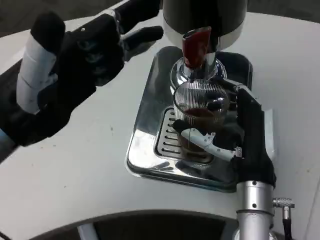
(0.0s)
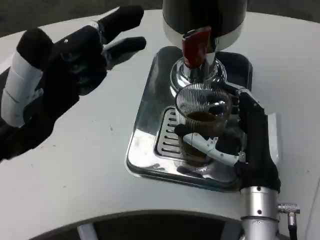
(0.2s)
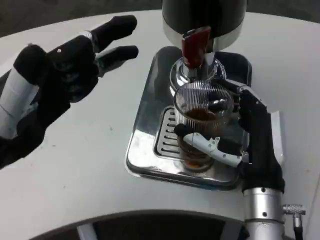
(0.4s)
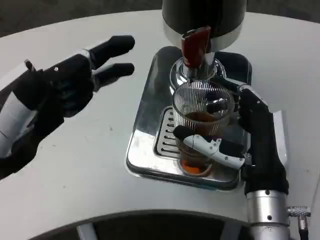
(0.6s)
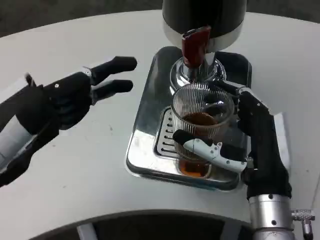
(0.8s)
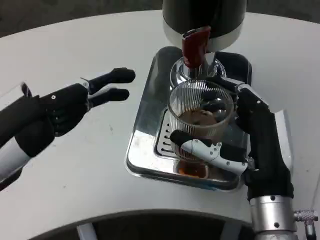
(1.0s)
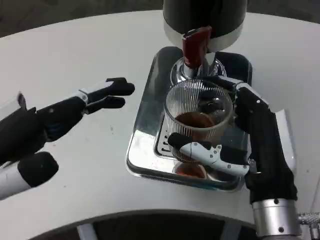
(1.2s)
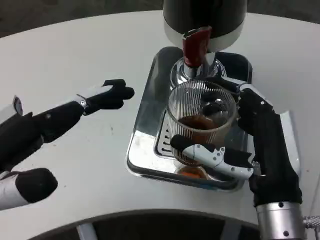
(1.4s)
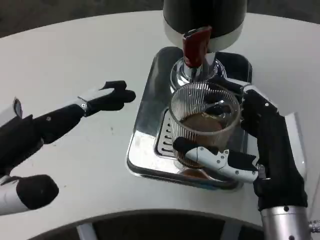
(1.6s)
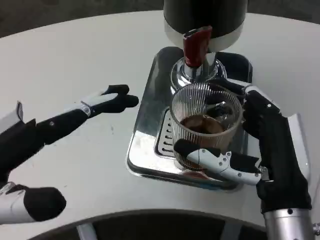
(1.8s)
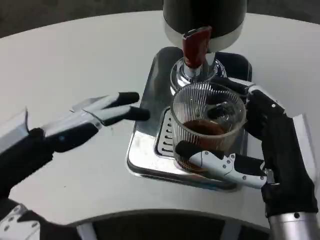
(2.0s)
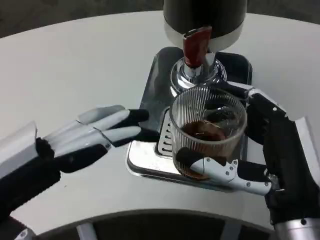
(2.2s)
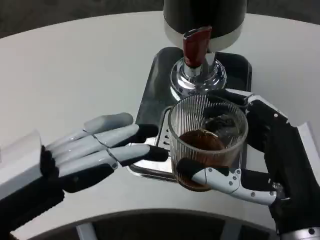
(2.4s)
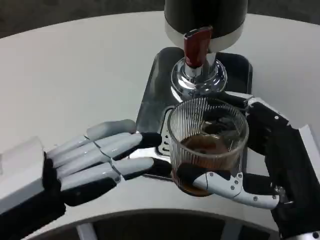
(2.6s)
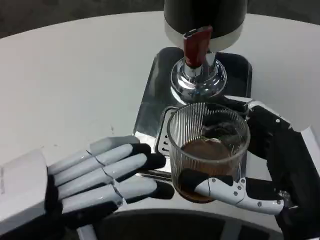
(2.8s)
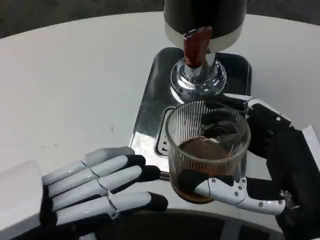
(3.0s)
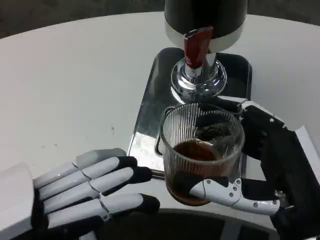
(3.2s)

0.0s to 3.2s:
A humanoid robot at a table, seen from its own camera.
Task of the whole recording: Grasp the cup under the faucet to collect the drink, then remove the cup.
0.0s to 1.6s: Both hands move backward, some 5 cm.
1.6s to 3.2s: The right hand shifts about 5 cm backward.

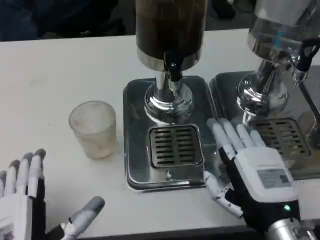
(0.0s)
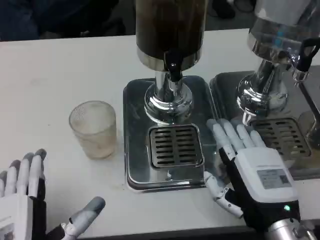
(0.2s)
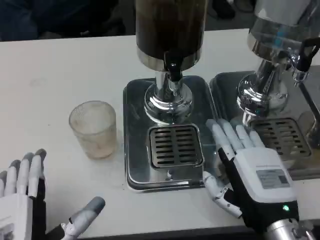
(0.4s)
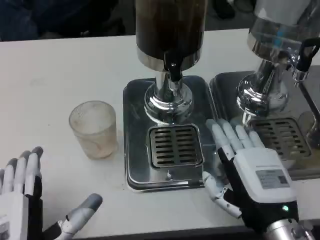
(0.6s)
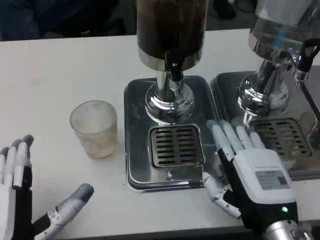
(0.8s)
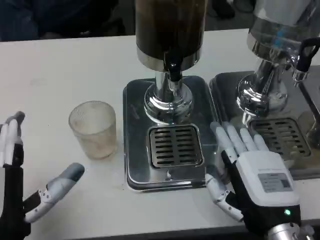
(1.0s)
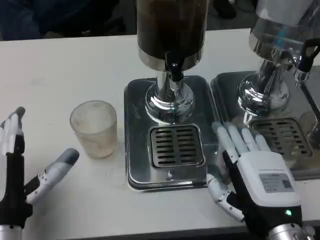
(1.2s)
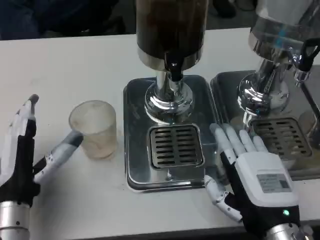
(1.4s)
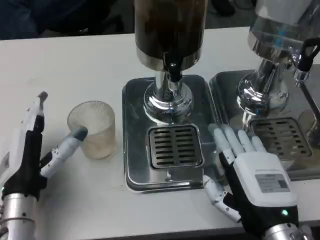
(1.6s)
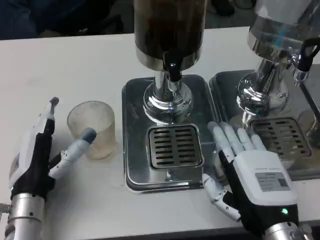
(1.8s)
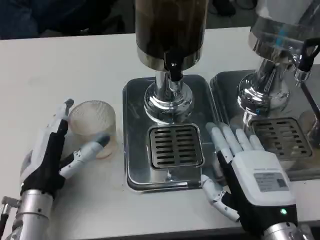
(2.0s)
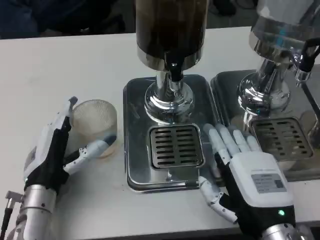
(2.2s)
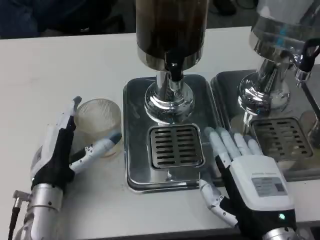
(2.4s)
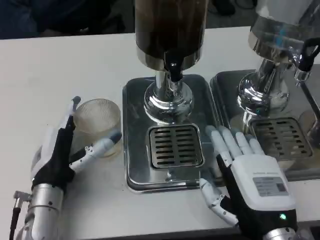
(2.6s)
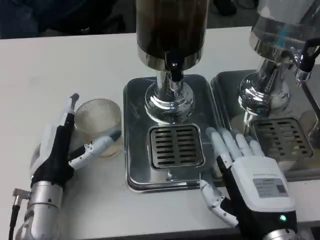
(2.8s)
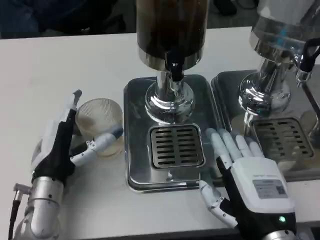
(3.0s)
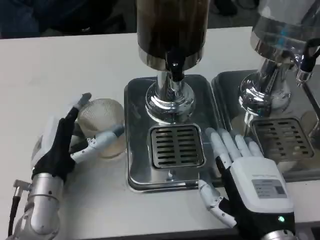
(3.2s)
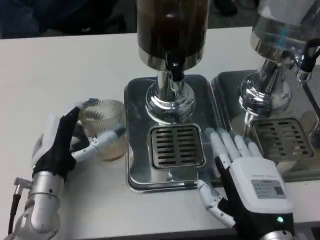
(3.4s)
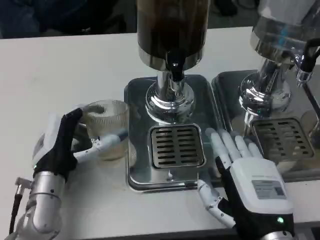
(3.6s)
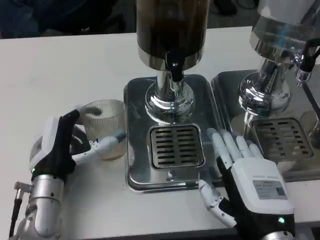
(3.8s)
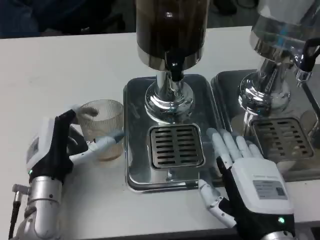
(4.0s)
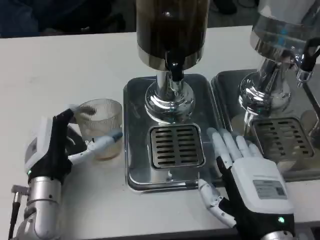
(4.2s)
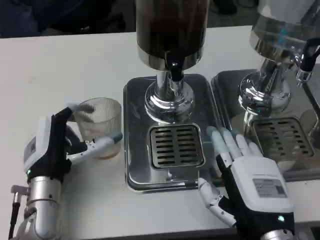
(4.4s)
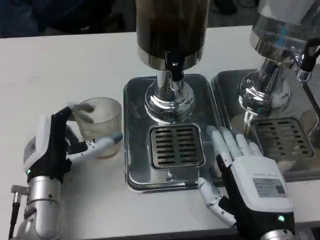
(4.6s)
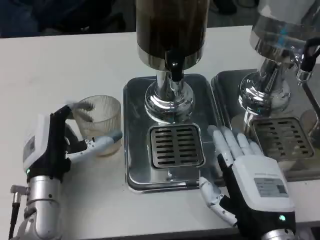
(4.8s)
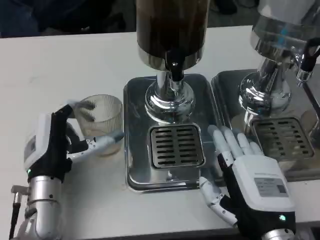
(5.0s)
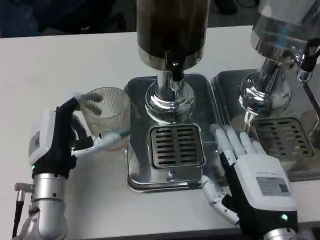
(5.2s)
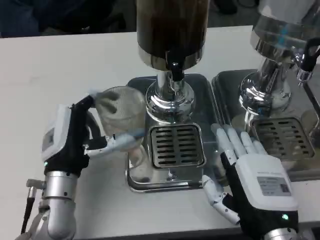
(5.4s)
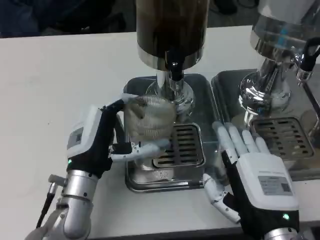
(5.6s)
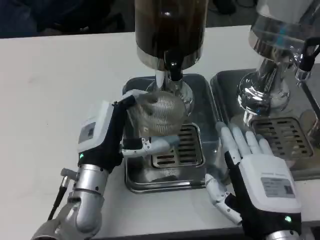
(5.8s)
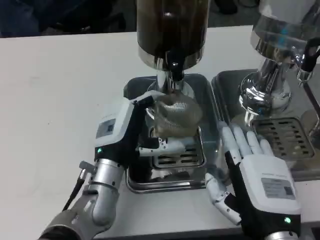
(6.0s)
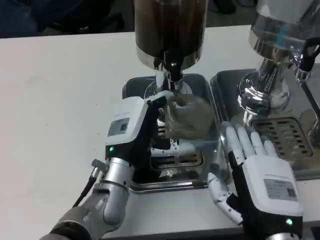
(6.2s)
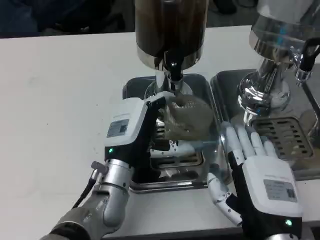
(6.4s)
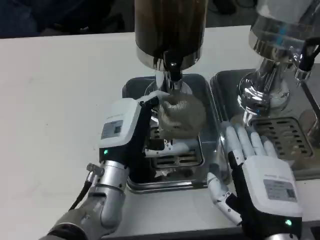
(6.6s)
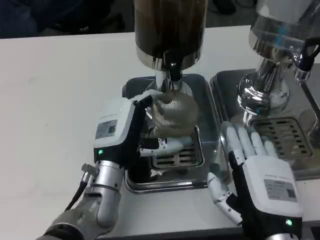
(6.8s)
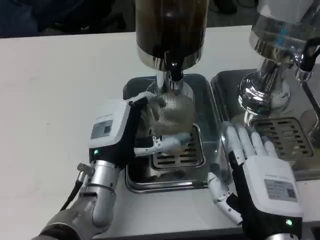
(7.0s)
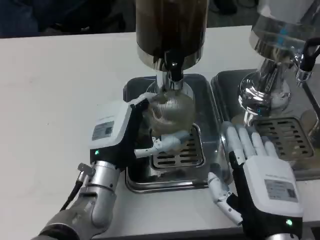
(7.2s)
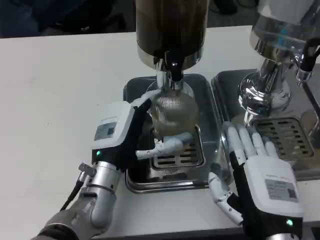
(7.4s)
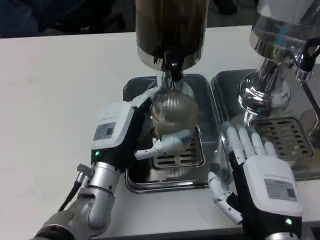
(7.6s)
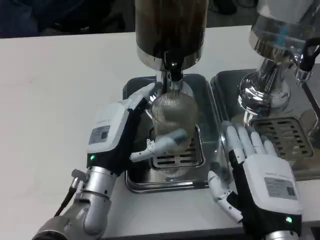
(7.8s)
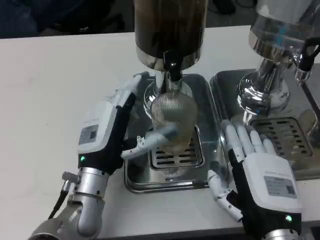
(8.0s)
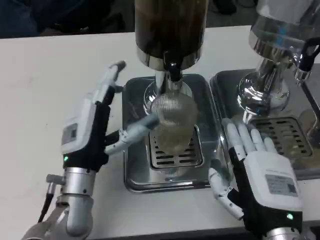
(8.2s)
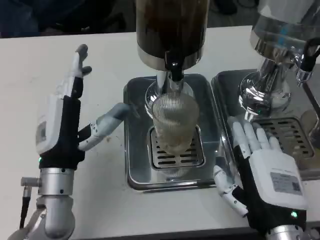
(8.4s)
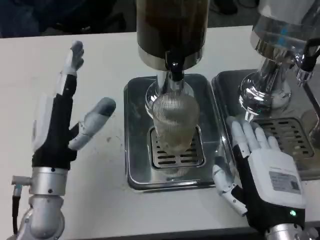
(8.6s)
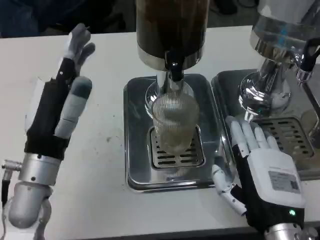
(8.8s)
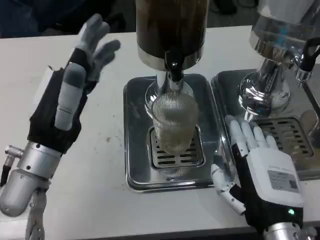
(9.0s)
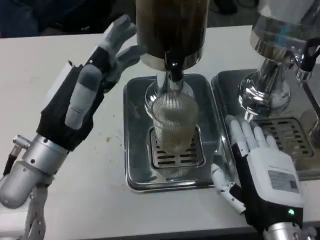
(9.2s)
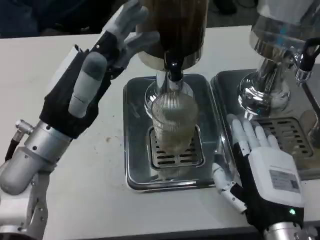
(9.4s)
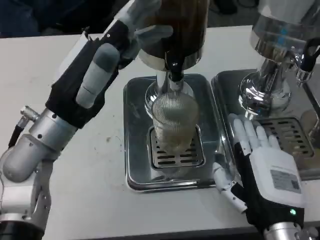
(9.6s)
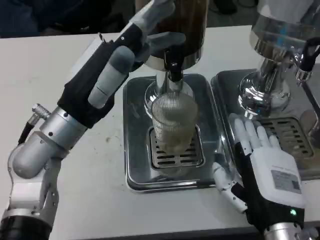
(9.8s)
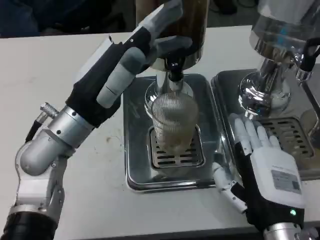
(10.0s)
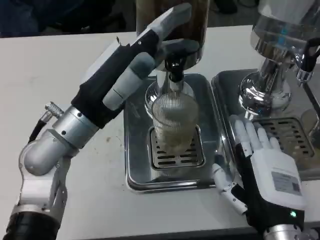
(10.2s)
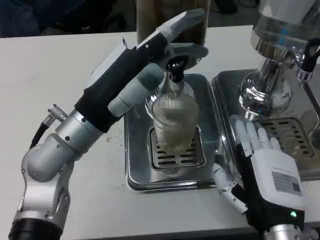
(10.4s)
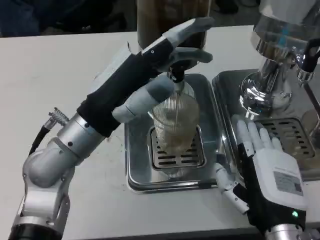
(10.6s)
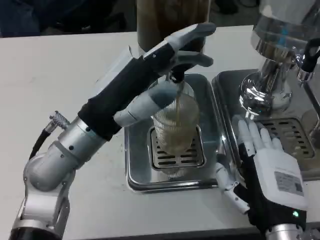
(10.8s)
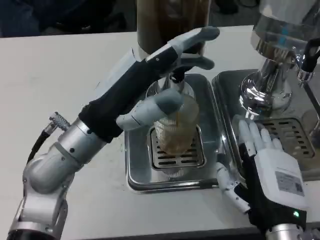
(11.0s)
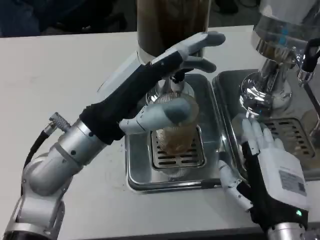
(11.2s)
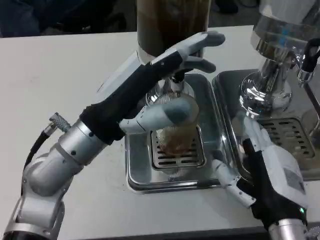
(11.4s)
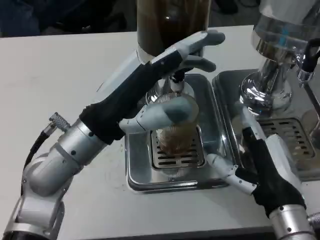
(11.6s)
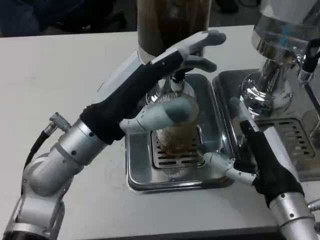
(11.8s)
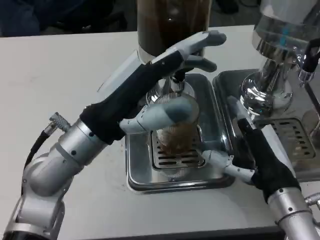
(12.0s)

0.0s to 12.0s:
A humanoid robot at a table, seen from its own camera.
Task of the whole recording: Grasp the cup under the faucet to collect the drink, then remove the cup.
0.0s to 1.6s: The left hand shifts about 10 cm forward.
3.0s to 4.4s: The hands move only a little.
4.4s to 6.0s: The left hand is displaced to the right by approximately 10 cm.
6.0s to 7.6s: The hands make only small movements.
7.6s to 9.0s: The left hand shifts some 10 cm to the left and upward.
9.0s to 10.4s: The left hand ends up about 5 cm from where it was.
10.4s to 12.0s: The right hand travels forward by some 5 cm.

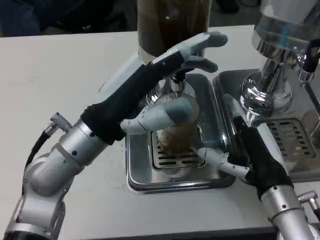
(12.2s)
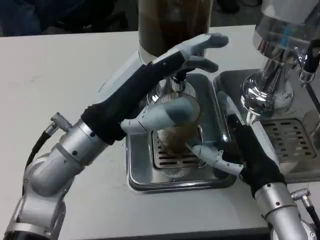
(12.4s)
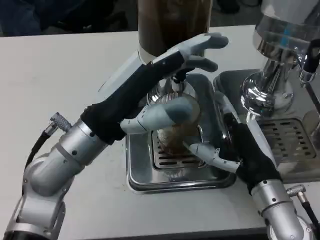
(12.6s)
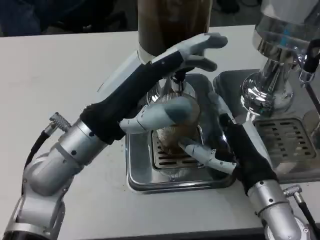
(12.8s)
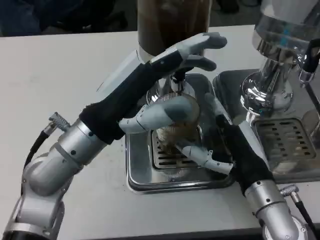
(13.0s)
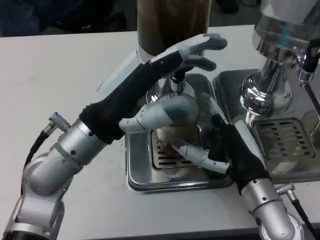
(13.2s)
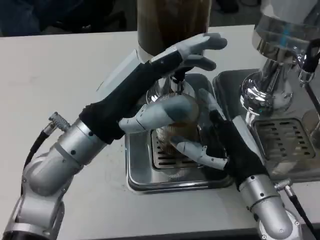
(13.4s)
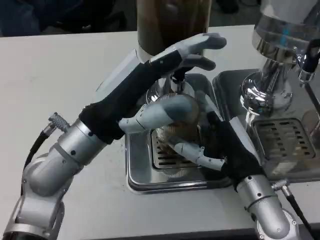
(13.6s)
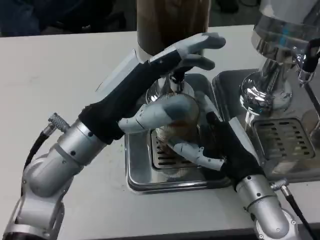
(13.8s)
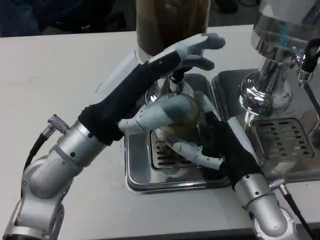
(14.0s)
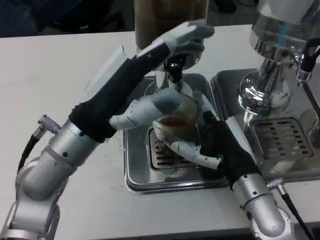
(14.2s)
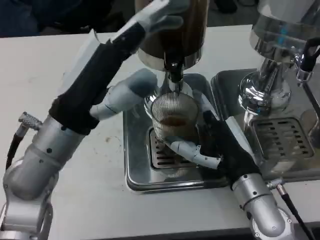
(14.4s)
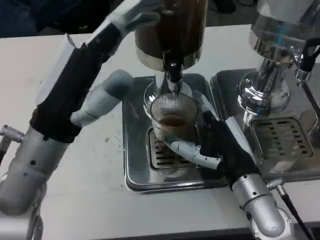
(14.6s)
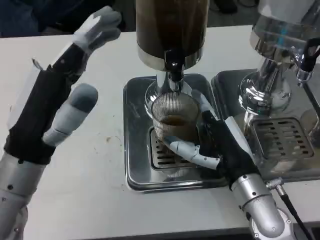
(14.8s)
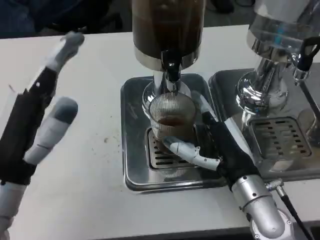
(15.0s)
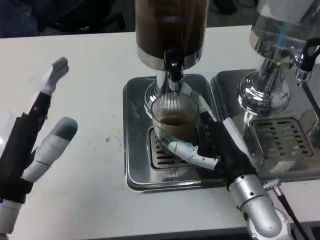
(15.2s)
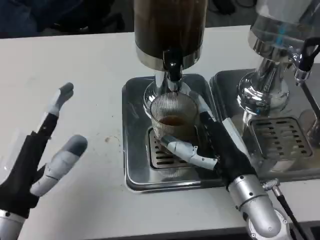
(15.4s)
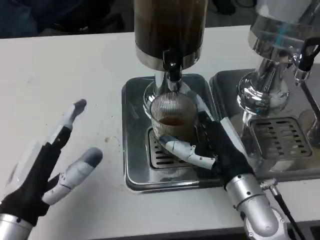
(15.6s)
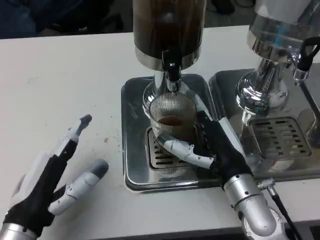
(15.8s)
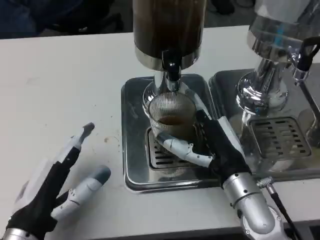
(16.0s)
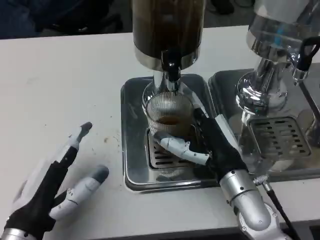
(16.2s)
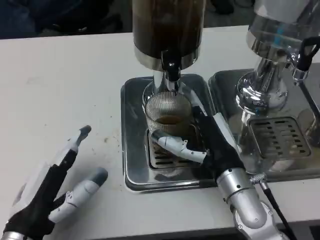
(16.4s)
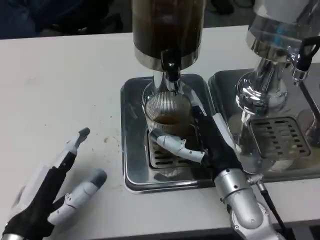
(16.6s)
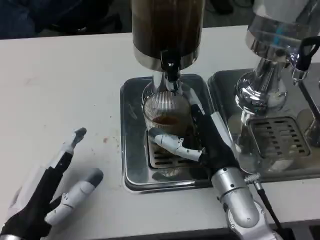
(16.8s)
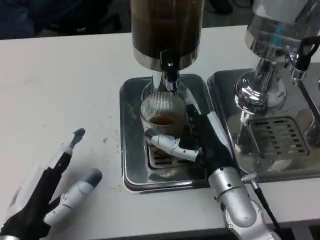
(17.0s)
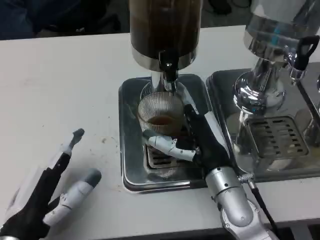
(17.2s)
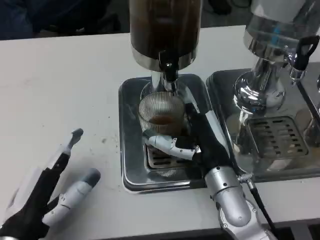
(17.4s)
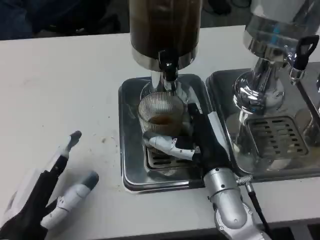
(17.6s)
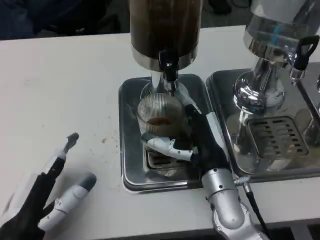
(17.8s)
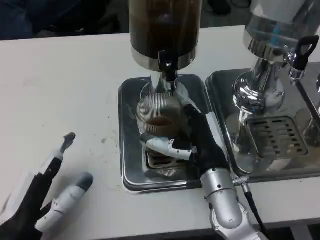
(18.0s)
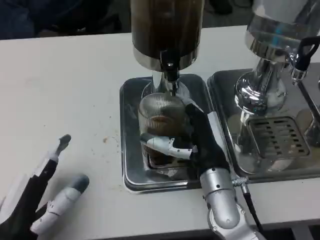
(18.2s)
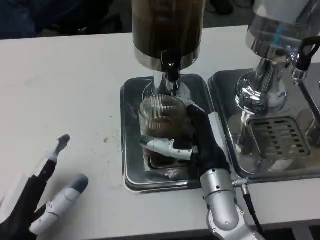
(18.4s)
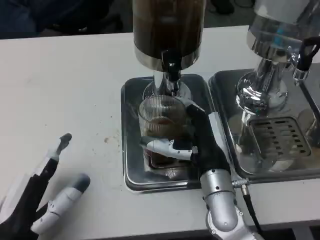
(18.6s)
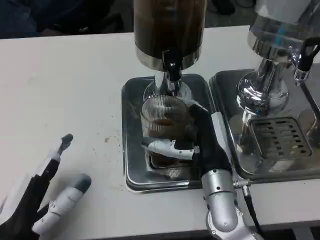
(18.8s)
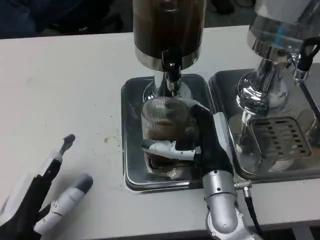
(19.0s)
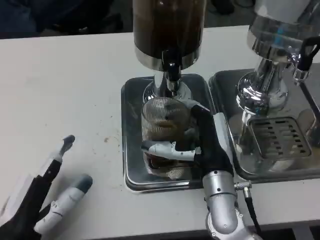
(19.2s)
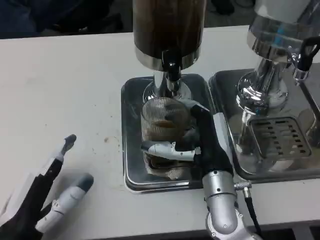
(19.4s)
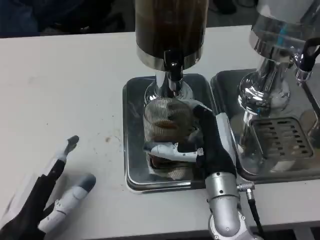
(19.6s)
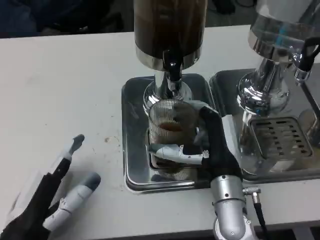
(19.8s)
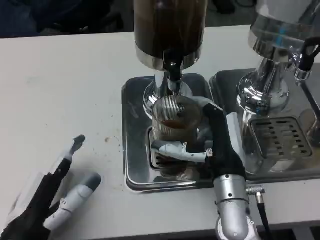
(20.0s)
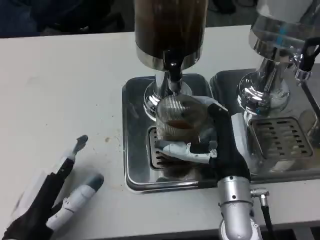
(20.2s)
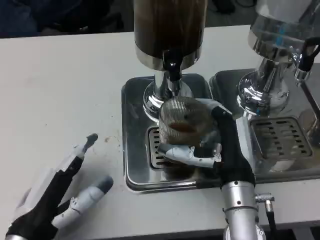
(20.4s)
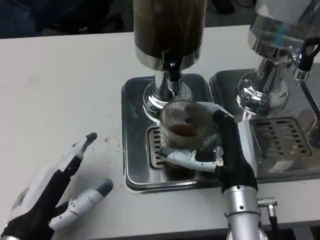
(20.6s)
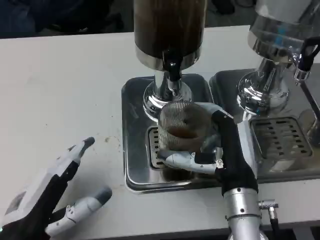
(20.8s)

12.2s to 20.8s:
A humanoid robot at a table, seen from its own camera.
Task of the whole recording: Grasp the cup under the faucet to collect the drink, then remove the cup.
12.2s to 13.6s: The hands stay close to where they were, moving slightly.
13.6s to 15.0s: The left hand moves to the left and backward, roughly 10 cm.
15.0s to 16.6s: The left hand is displaced downward by approximately 5 cm.
18.0s to 19.4s: The hands stay close to where they were, moving slightly.
